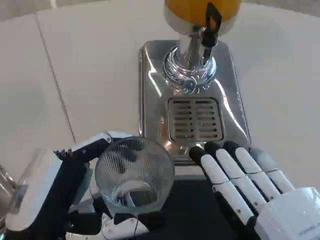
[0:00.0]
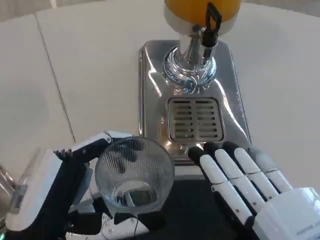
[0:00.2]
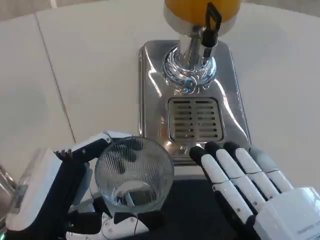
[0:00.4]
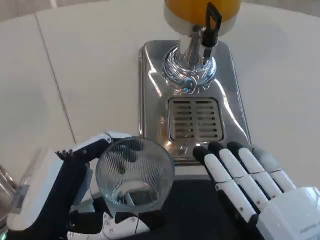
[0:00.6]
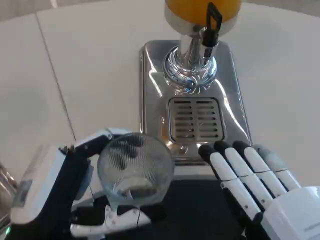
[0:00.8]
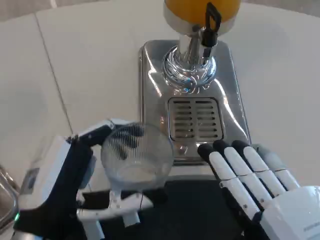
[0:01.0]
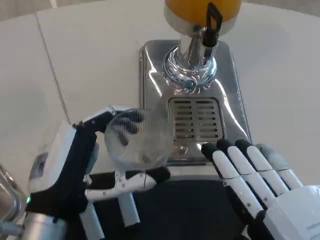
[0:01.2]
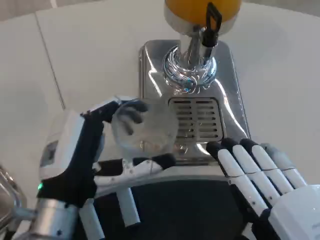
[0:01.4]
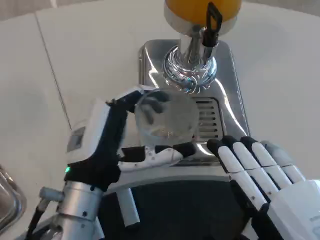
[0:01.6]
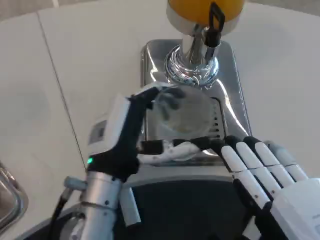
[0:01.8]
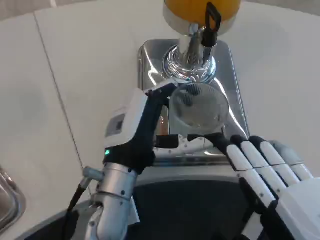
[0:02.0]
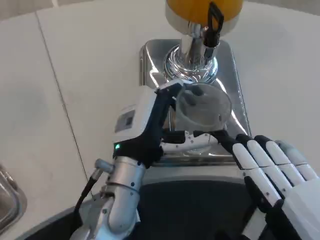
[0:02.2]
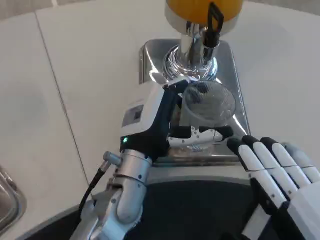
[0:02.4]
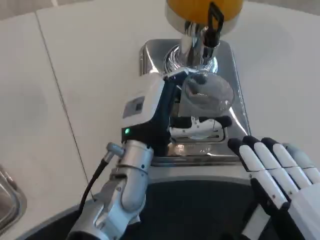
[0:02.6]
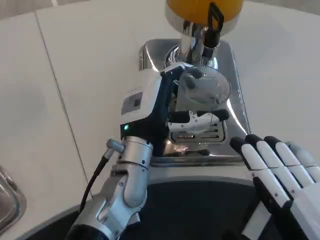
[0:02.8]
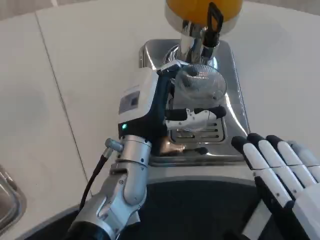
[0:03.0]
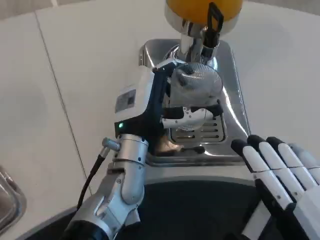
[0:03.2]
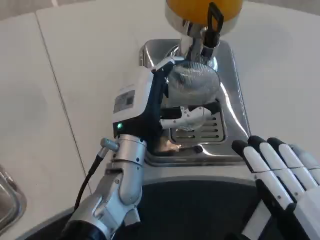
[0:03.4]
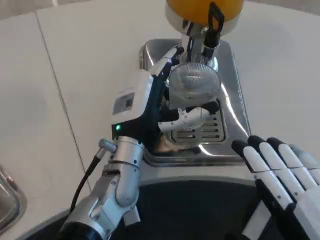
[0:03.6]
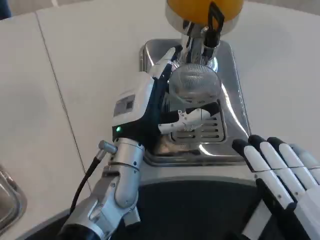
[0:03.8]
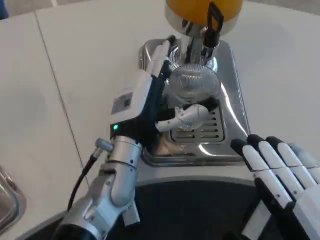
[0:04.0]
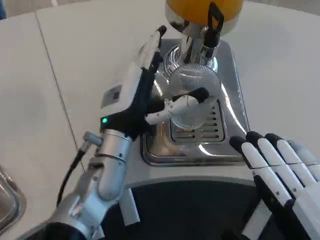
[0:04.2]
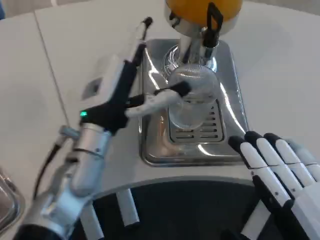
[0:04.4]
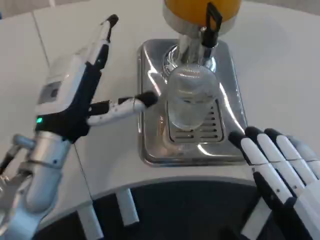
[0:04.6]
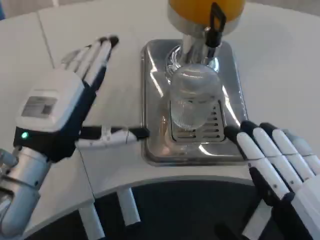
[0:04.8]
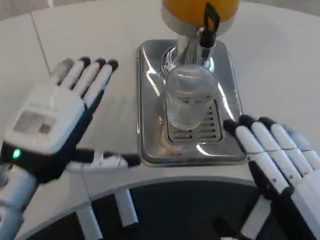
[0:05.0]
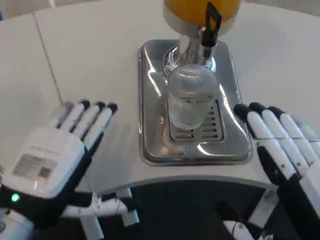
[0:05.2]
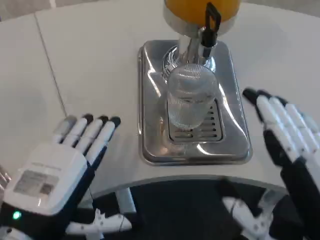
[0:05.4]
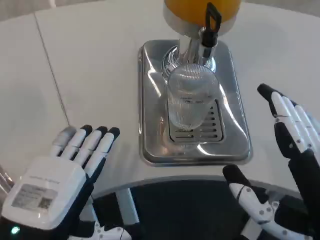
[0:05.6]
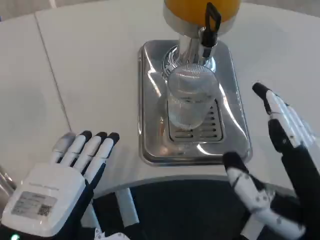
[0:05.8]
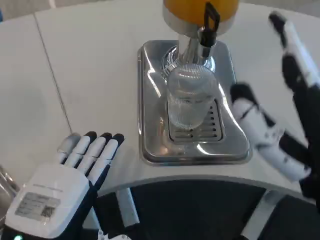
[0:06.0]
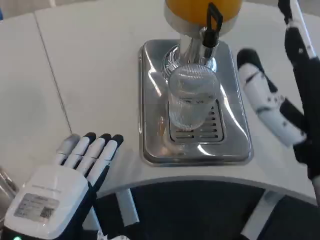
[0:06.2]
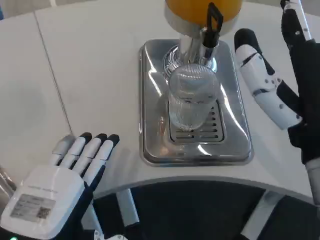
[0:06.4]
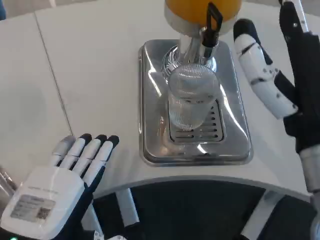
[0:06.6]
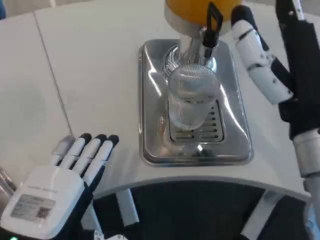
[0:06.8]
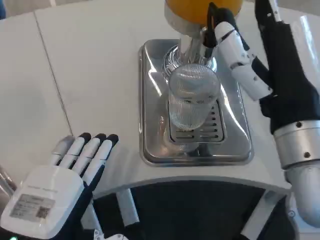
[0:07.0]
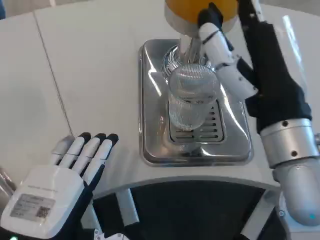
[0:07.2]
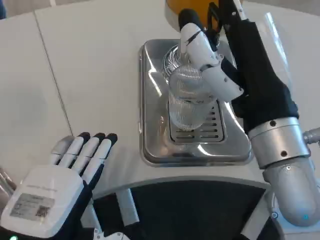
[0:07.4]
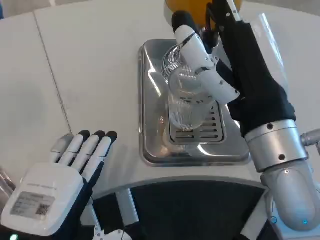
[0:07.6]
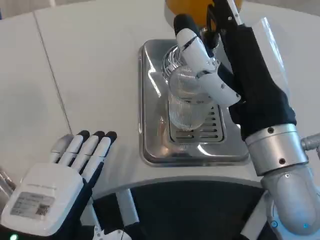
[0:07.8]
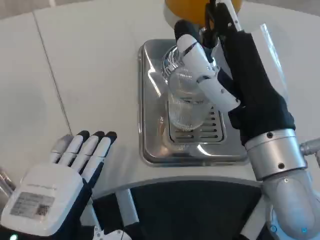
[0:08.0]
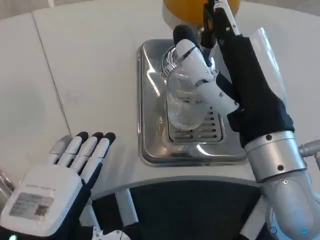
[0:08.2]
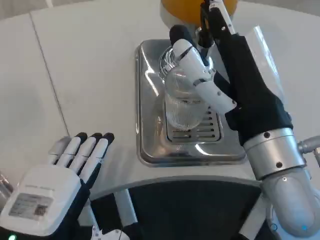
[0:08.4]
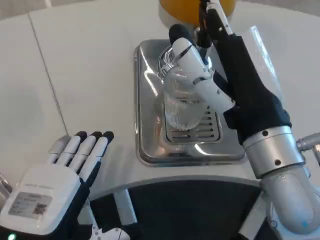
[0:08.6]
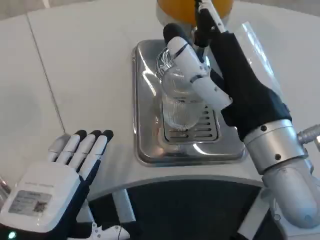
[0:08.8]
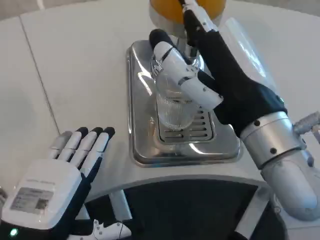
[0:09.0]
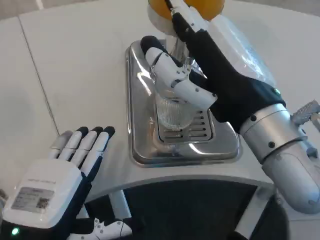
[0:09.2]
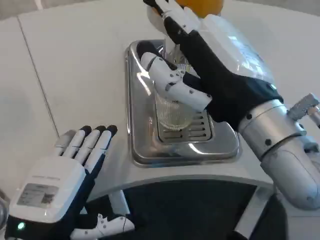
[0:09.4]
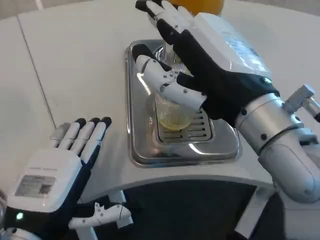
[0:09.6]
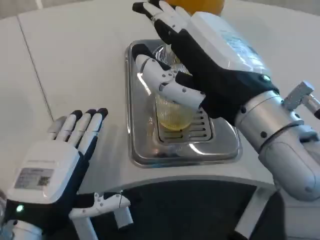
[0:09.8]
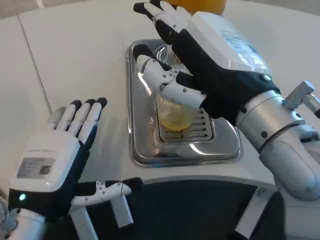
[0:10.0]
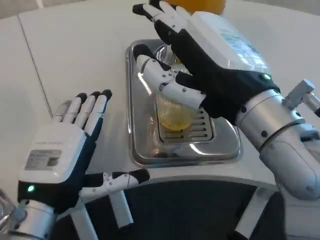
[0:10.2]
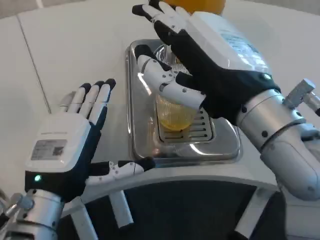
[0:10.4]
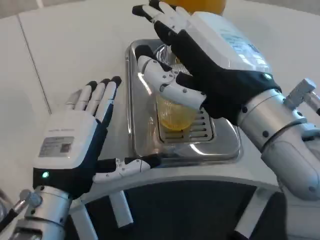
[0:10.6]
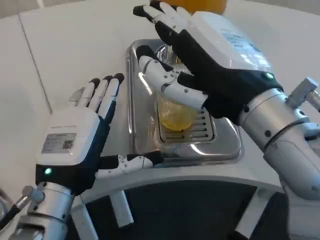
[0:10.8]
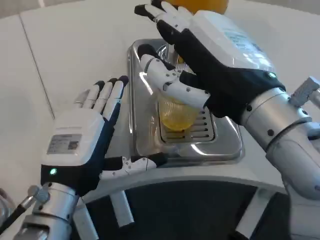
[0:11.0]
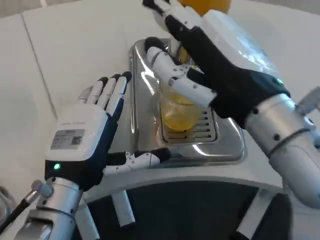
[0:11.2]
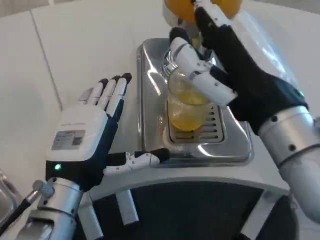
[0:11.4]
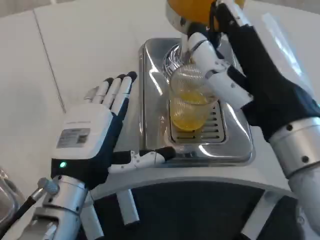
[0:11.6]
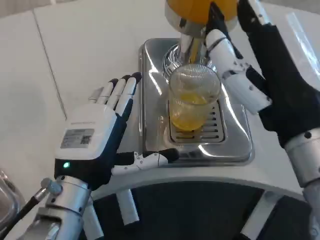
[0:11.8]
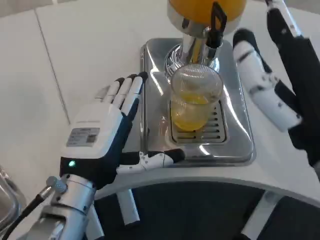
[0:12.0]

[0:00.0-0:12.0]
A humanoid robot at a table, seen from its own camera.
Task of the whole recording: Grasp the cup under the faucet to collect the drink, then remove the cup.
0:00.0 to 0:01.6: The left hand travels forward and to the right by roughly 10 cm.
0:01.6 to 0:03.0: The left hand shifts roughly 10 cm forward and to the right.
0:03.0 to 0:04.4: The left hand travels to the left by about 5 cm.
0:04.4 to 0:06.0: The left hand is displaced backward by some 15 cm. Meanwhile the right hand goes approximately 10 cm forward.
0:06.0 to 0:07.6: The right hand is displaced forward by about 10 cm.
0:09.0 to 0:10.4: The left hand is displaced forward by about 5 cm.
0:10.4 to 0:12.0: The right hand moves backward, approximately 5 cm.

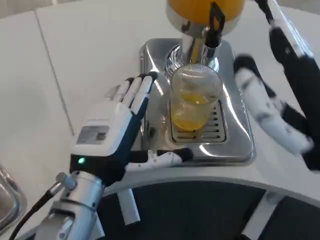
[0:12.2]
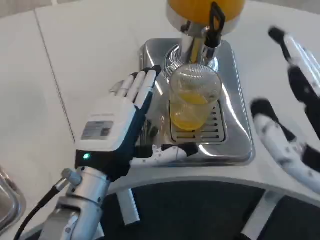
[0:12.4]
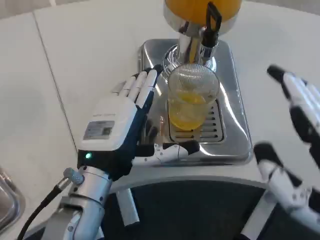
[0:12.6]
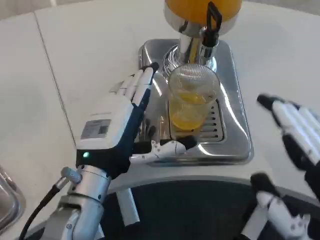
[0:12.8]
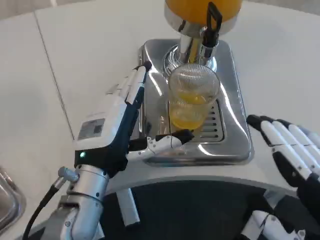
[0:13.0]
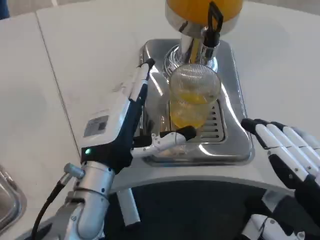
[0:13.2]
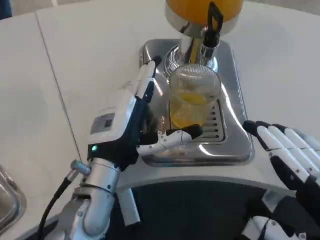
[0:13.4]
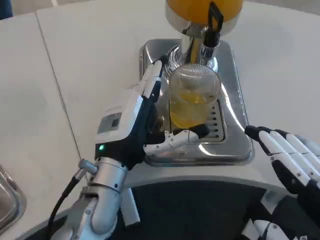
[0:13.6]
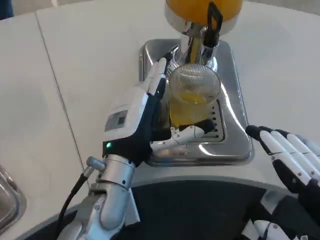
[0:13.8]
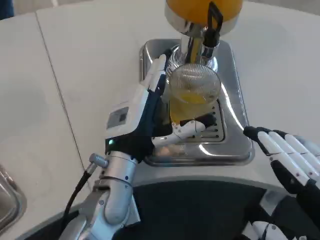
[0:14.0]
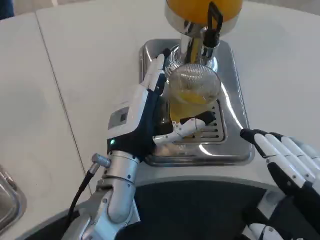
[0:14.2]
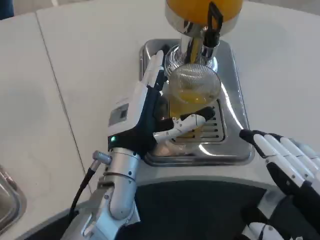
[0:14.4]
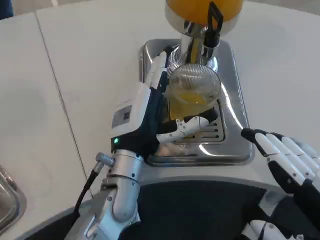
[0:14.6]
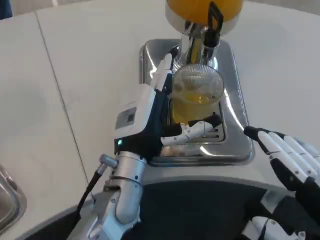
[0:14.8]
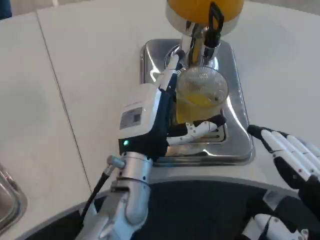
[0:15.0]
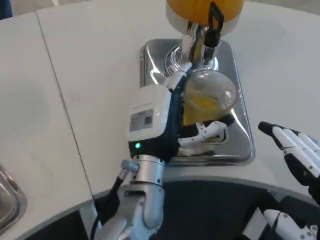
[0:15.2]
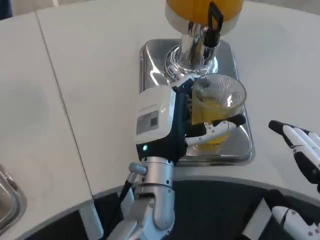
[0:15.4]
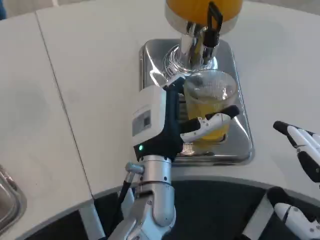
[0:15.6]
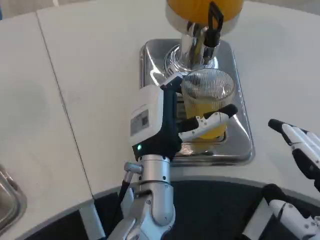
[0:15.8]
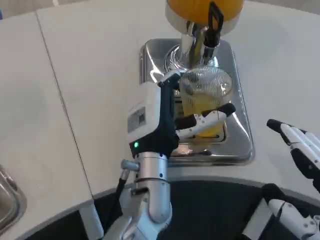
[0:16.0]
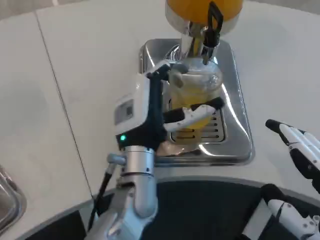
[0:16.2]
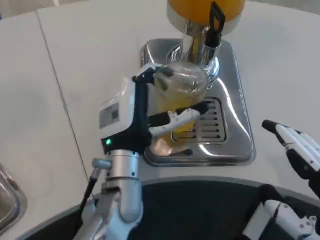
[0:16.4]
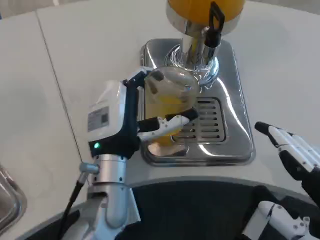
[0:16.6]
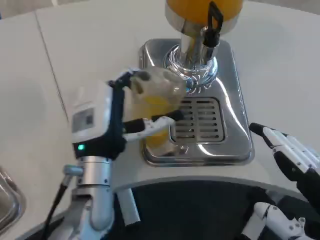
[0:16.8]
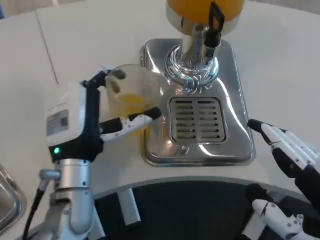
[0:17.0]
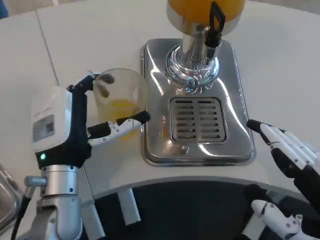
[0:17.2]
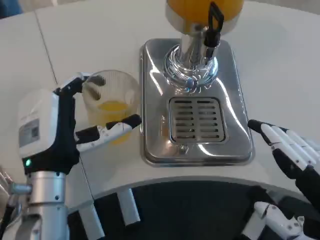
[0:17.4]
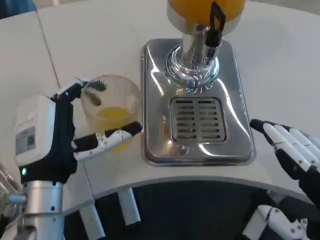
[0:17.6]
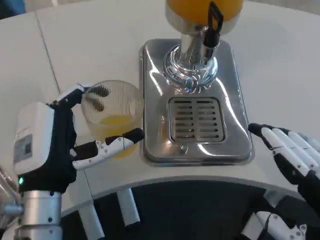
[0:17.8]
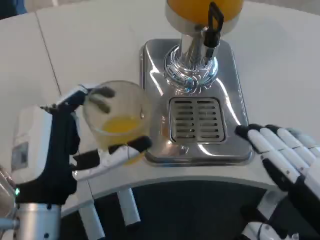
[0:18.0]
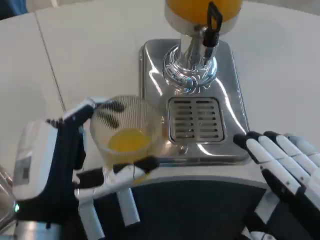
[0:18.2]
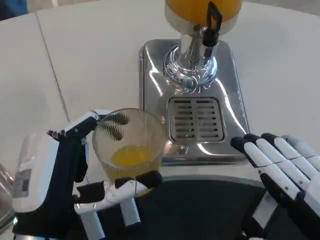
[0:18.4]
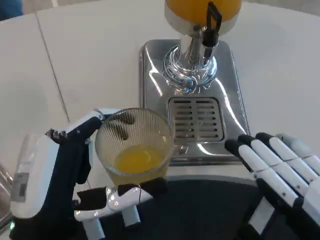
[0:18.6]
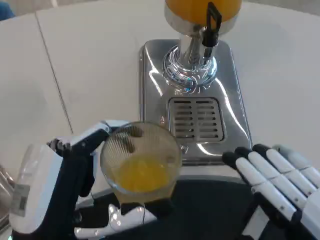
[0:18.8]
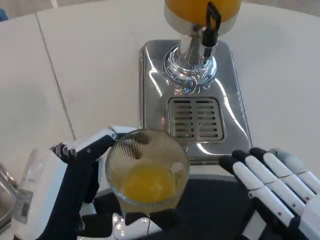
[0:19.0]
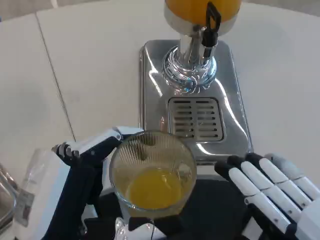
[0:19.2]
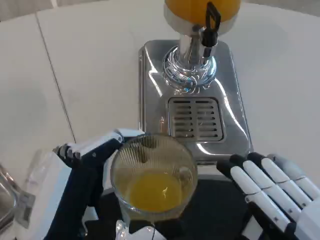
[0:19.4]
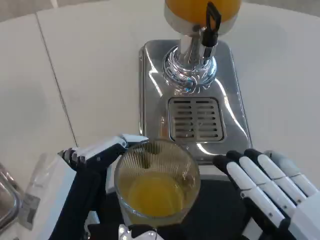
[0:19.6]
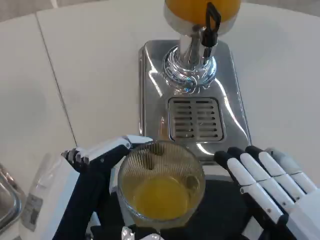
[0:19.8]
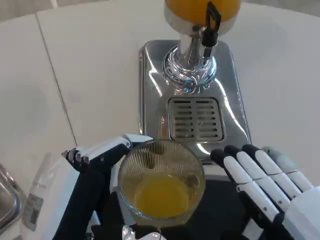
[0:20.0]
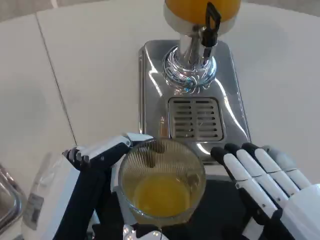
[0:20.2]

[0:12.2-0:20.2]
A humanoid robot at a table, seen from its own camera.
Task of the whole recording: Grasp the cup under the faucet to collect the drink, then remove the cup.
0:12.2 to 0:13.8: The right hand heads backward, covering some 5 cm. The left hand moves about 5 cm.
0:13.8 to 0:15.4: The left hand heads to the right, covering some 5 cm.
0:15.4 to 0:17.0: The left hand shifts approximately 10 cm to the left.
0:17.0 to 0:18.6: The left hand goes some 15 cm backward.

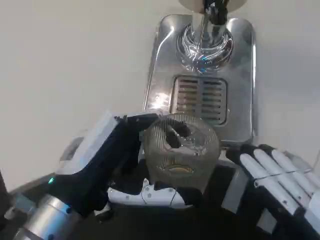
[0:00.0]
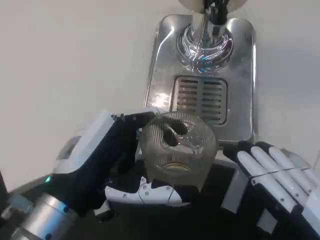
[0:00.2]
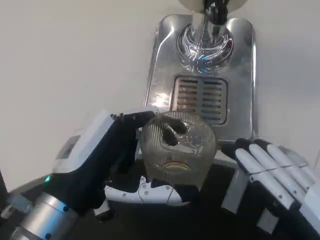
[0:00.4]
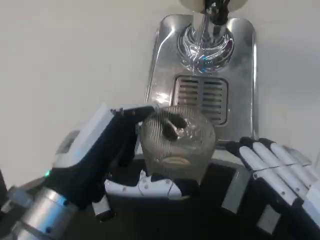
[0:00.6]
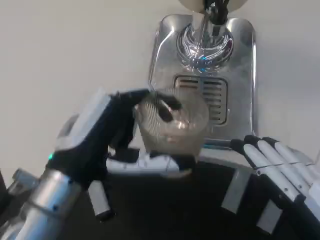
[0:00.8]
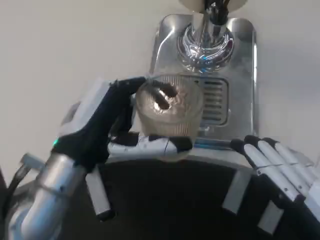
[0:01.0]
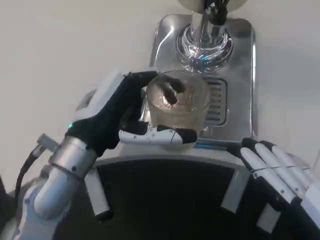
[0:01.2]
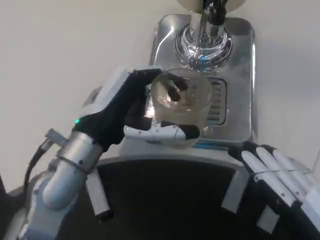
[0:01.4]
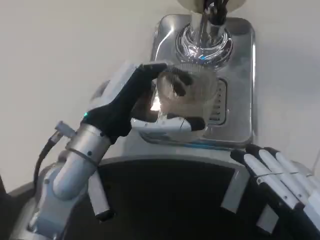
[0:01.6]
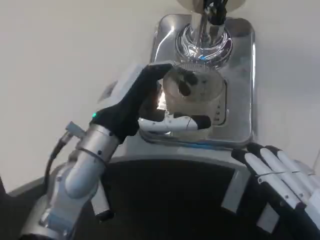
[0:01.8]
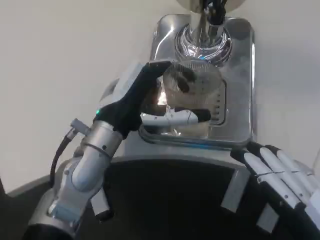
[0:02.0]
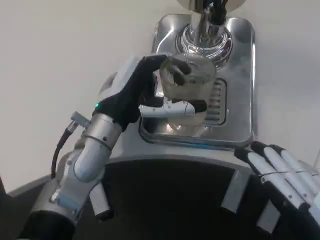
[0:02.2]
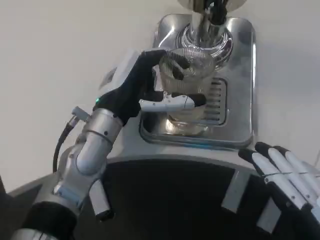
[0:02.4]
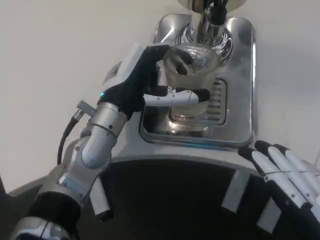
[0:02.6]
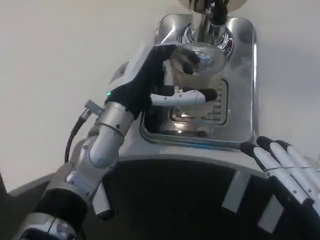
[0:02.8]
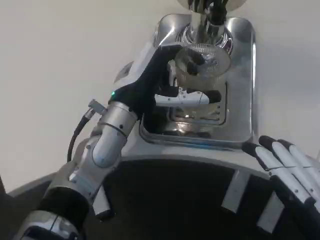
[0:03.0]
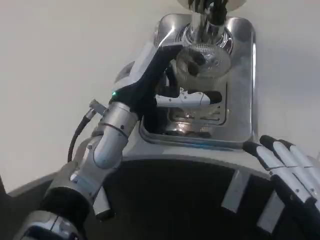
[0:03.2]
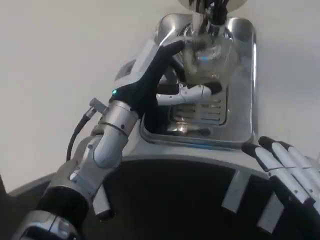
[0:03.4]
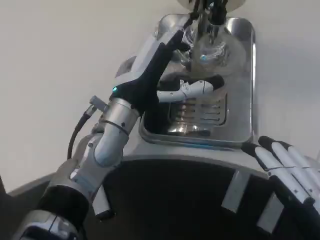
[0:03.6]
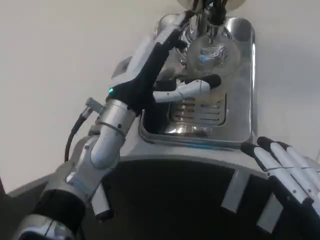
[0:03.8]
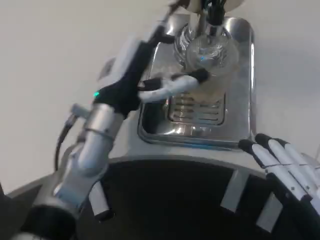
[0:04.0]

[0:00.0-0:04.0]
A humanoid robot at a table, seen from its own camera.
Task of the whole recording: Grasp the cup under the faucet to collect the drink, then remove the cup.
0:00.0 to 0:01.4: The left hand moves forward, about 10 cm.
0:01.4 to 0:02.6: The left hand shifts about 5 cm forward.
0:02.6 to 0:04.0: The hands stay close to where they were, moving slightly.
